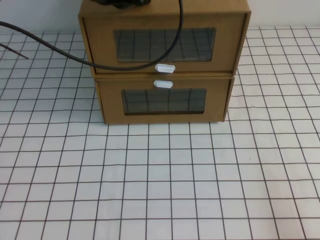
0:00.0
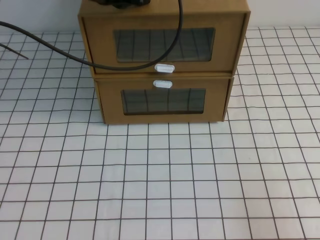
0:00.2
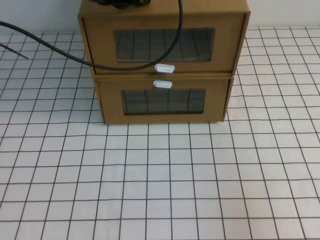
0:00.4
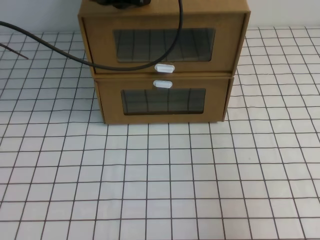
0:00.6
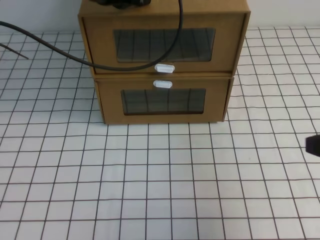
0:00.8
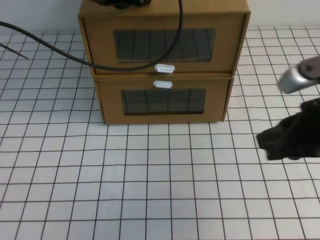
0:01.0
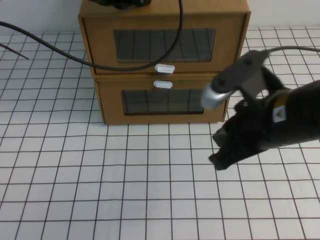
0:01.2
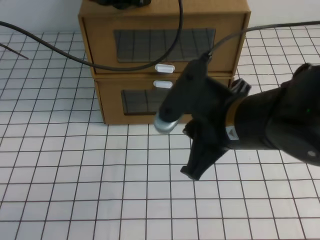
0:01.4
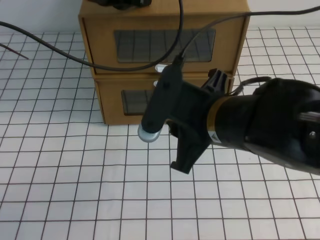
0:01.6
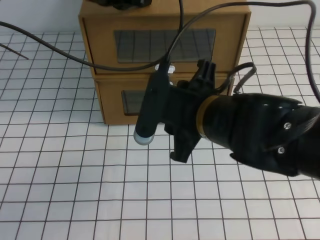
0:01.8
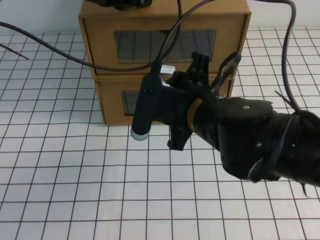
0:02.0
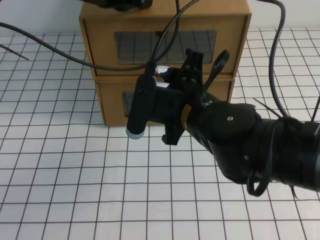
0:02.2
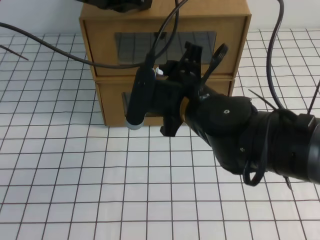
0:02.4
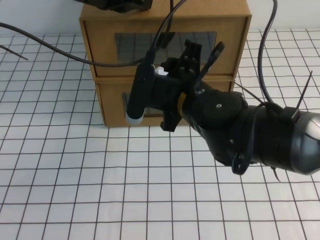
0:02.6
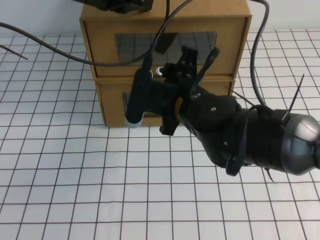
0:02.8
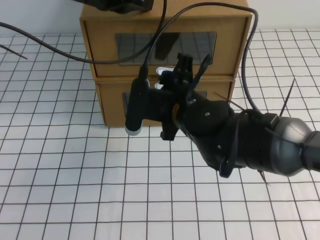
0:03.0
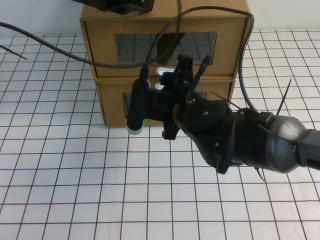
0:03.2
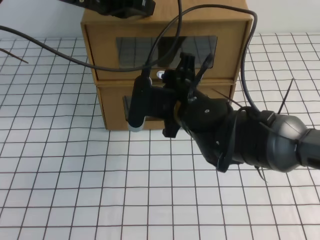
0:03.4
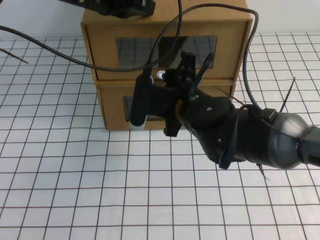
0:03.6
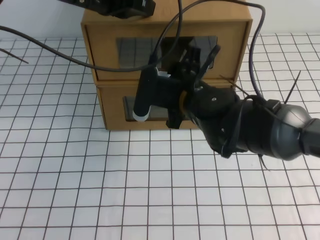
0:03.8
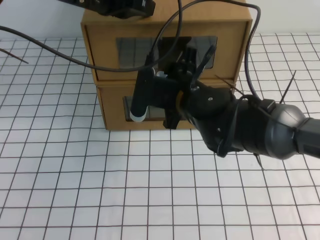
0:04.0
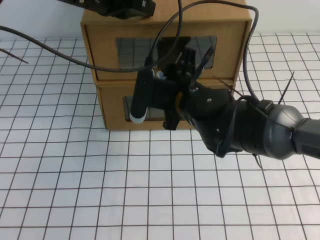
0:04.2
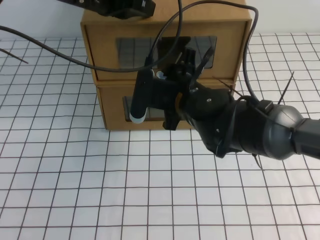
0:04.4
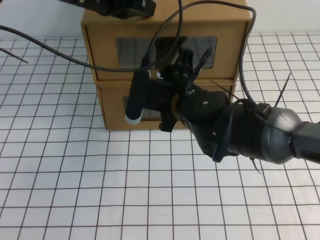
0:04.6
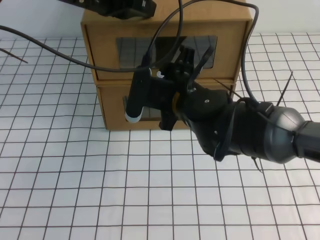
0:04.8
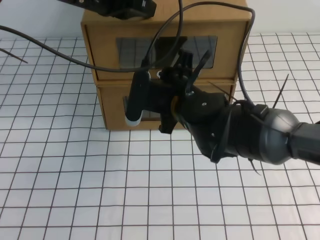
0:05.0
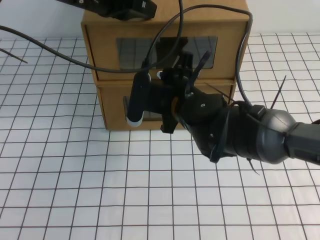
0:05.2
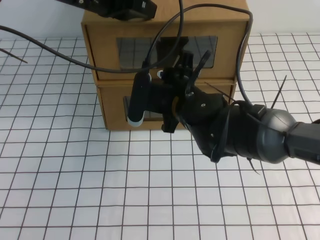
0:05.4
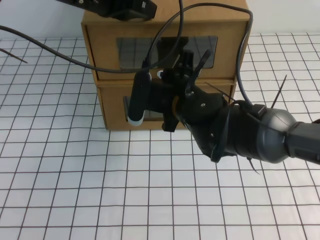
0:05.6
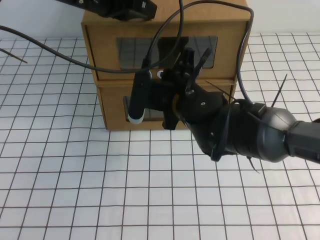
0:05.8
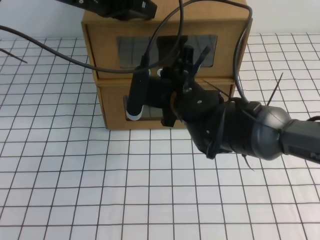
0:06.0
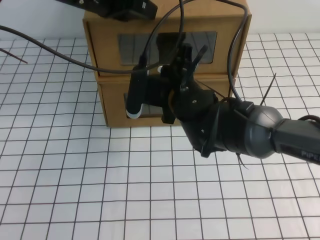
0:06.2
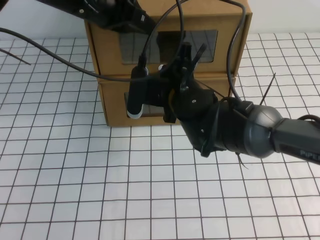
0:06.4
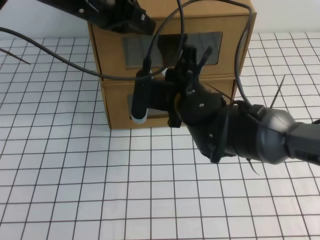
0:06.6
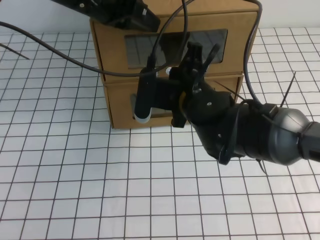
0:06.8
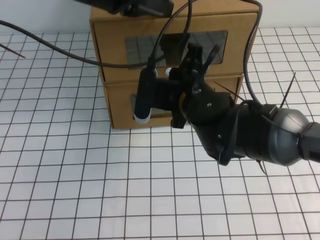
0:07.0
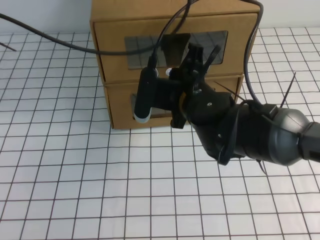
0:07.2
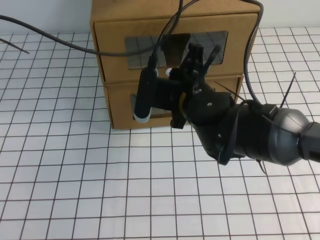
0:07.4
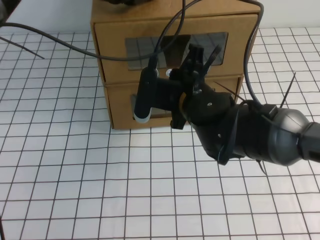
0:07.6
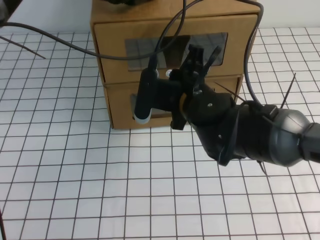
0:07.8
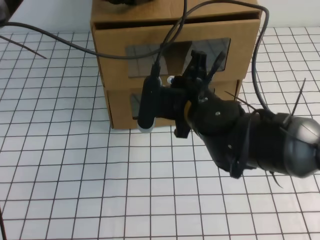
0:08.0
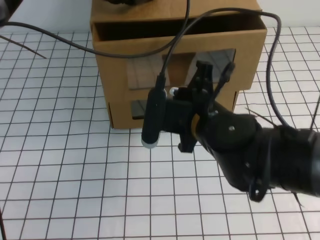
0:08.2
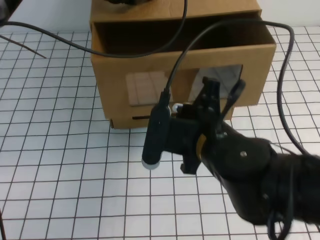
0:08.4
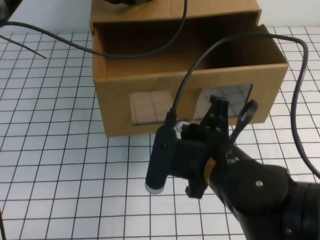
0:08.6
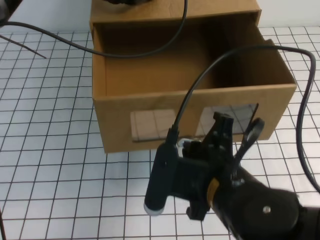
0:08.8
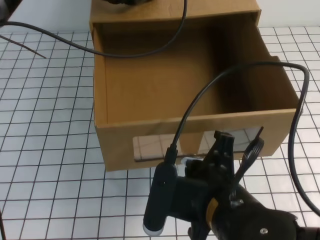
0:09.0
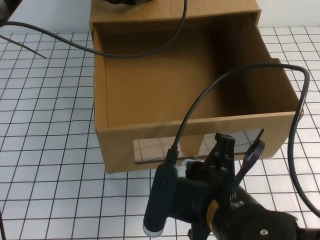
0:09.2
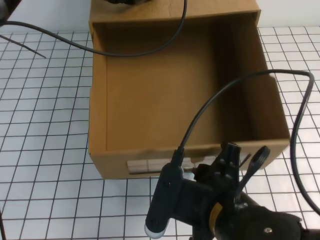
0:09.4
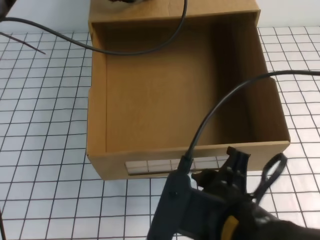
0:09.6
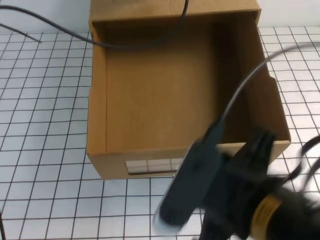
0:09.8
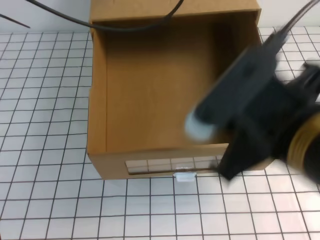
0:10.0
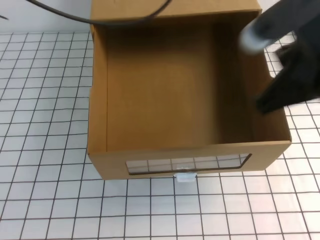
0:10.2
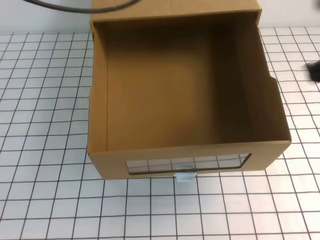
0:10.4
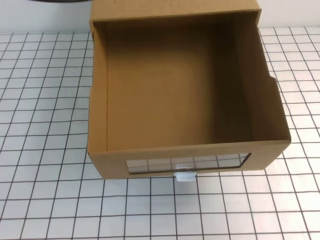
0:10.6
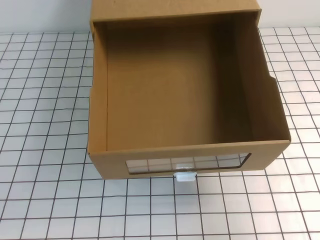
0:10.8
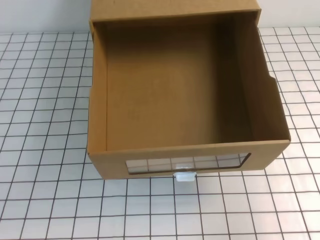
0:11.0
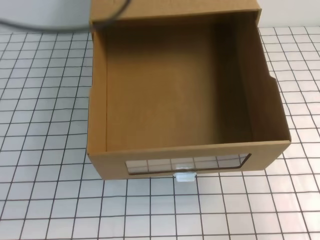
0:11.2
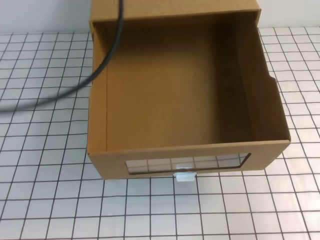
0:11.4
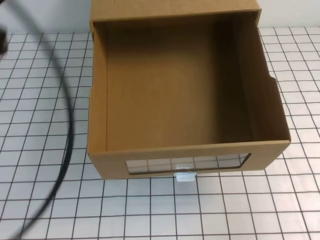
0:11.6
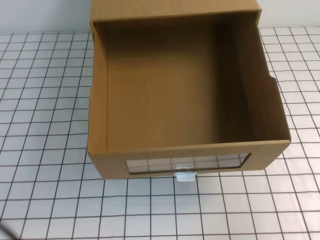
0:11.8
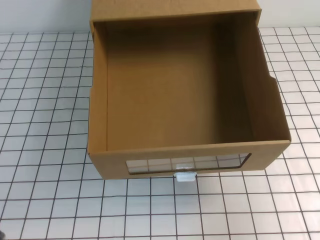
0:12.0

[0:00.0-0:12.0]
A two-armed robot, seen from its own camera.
Task of the whole recording: open the shoebox on the white tablecloth.
0:00.0 to 0:01.6: The right gripper is displaced to the left, forward and upward by some 30 cm.
0:01.6 to 0:03.0: The right gripper is displaced forward and downward by approximately 10 cm, and opens up.
0:04.4 to 0:06.0: The right gripper closes up.
0:07.6 to 0:09.0: The right gripper goes roughly 15 cm backward.
0:09.0 to 0:10.4: The right gripper shifts approximately 20 cm to the right and upward, and opens, then closes again. The left gripper shifts roughly 15 cm upward and backward.
0:10.4 to 0:12.0: The right gripper shifts some 15 cm backward, downward and to the right. Meanwhile the left gripper is displaced backward, downward and to the left by some 35 cm.

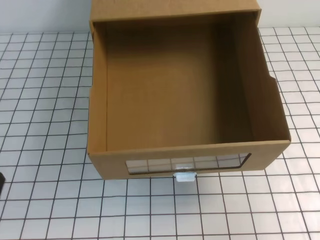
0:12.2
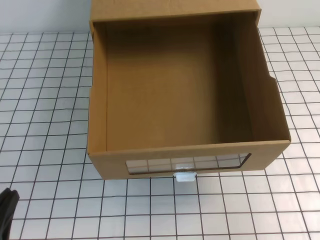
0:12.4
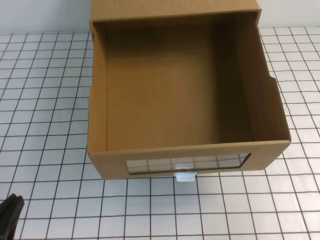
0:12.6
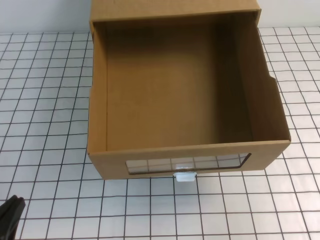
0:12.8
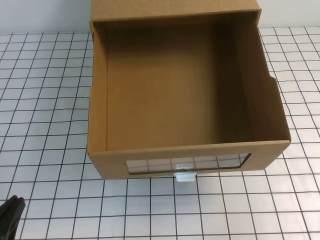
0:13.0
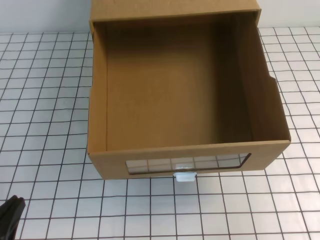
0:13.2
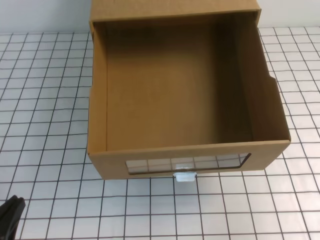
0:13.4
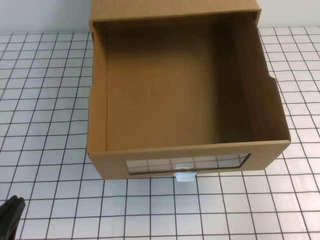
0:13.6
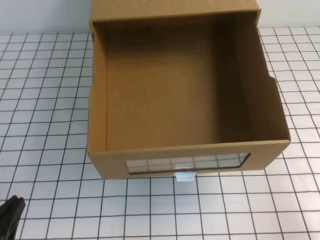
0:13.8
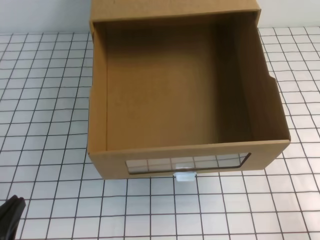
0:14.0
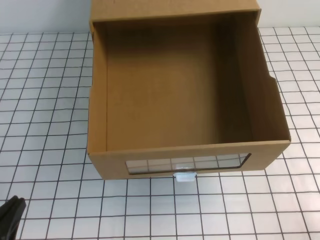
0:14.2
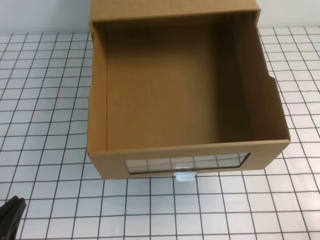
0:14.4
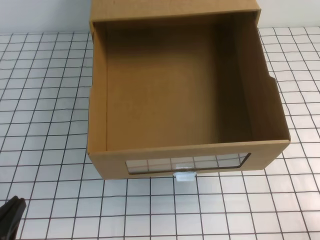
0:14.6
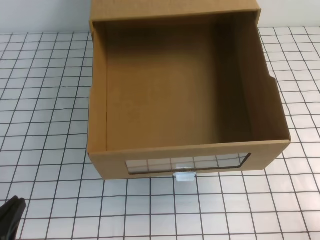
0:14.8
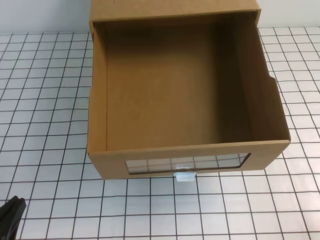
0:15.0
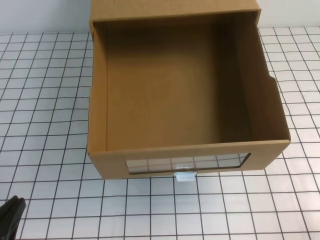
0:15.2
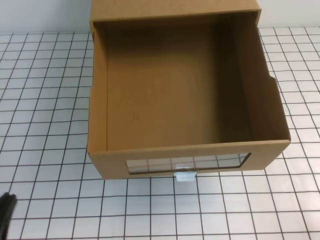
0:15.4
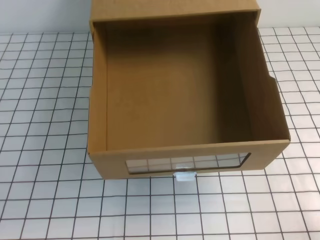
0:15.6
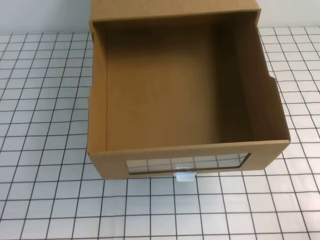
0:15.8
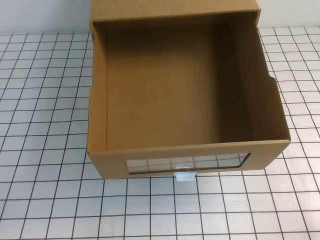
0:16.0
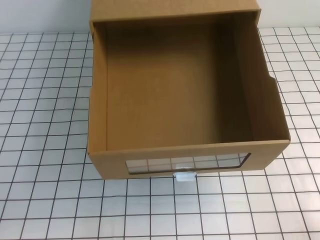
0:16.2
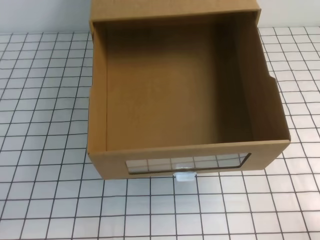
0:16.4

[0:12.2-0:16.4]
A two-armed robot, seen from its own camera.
Task of the whole recording: open the shoebox on the white tablecloth.
Step, 0:12.2 to 0:16.4: Open the shoe box.
0:12.2 to 0:13.6: The left gripper moves downward, roughly 5 cm.
0:13.6 to 0:15.0: The right gripper shifts some 10 cm downward.
0:15.0 to 0:16.4: The grippers stay close to where they were, moving slightly.

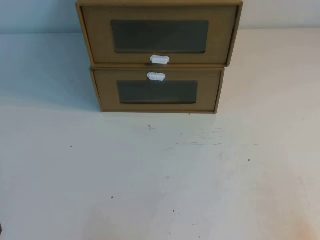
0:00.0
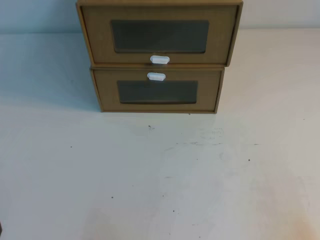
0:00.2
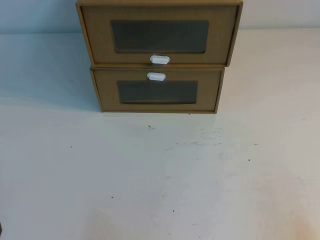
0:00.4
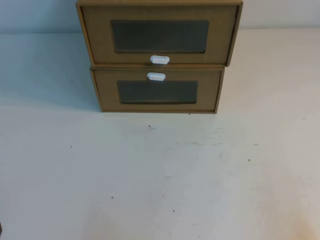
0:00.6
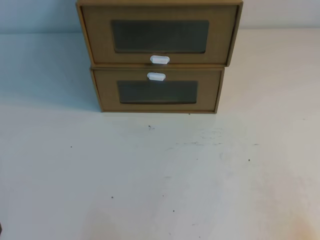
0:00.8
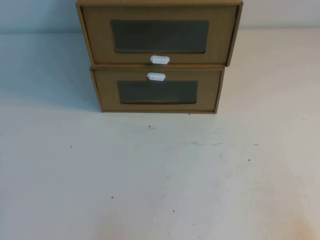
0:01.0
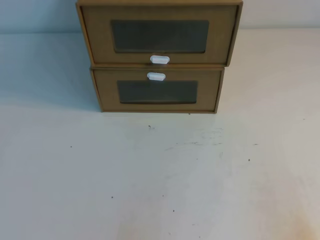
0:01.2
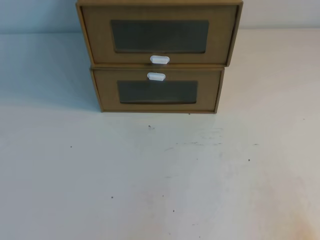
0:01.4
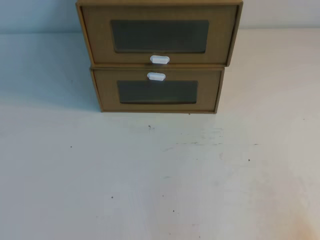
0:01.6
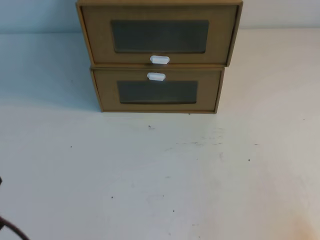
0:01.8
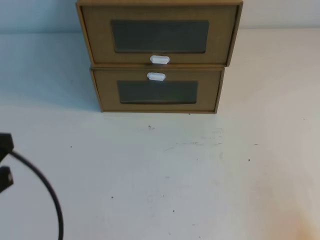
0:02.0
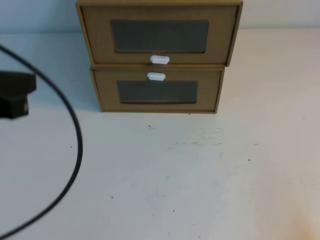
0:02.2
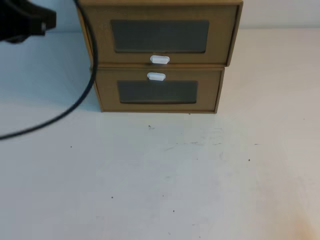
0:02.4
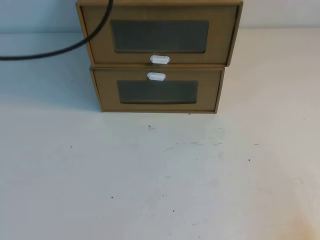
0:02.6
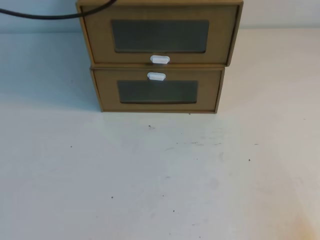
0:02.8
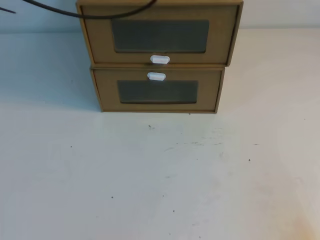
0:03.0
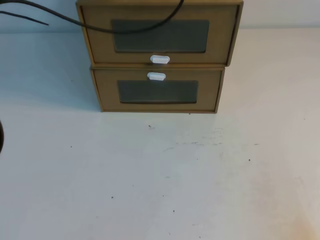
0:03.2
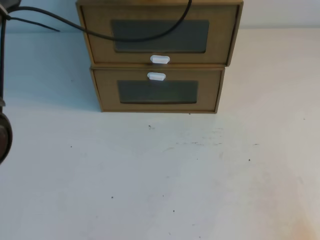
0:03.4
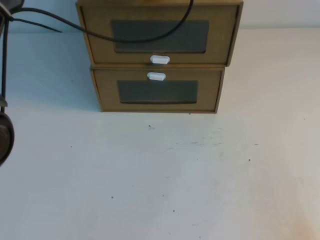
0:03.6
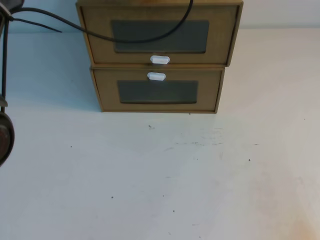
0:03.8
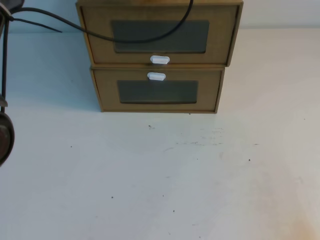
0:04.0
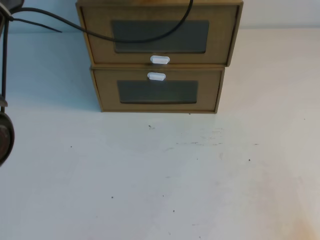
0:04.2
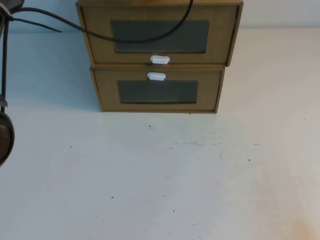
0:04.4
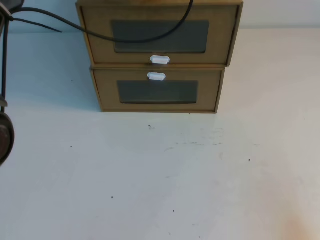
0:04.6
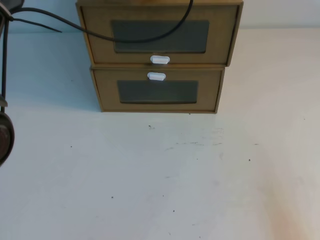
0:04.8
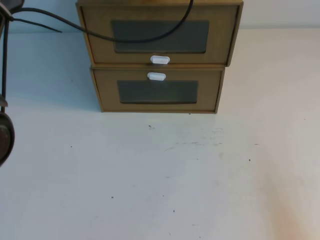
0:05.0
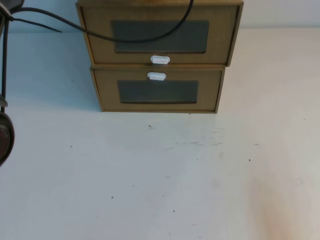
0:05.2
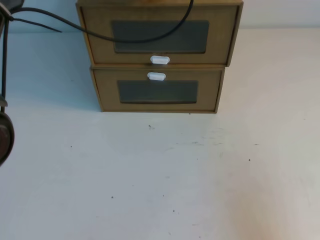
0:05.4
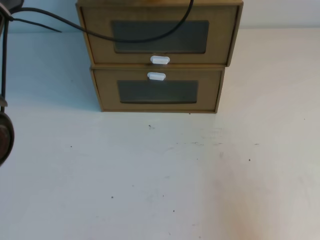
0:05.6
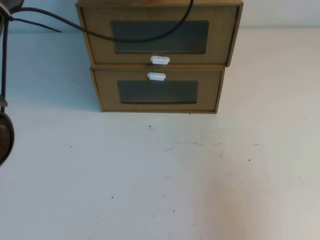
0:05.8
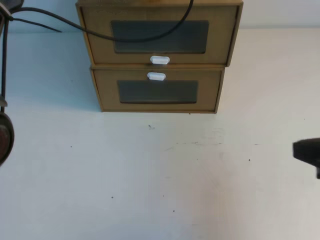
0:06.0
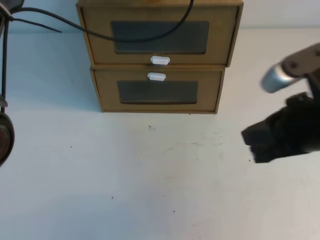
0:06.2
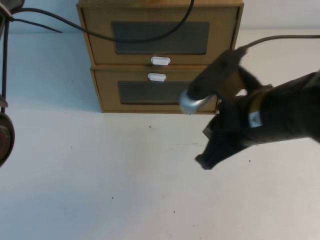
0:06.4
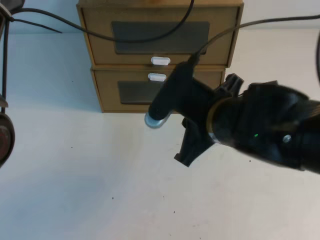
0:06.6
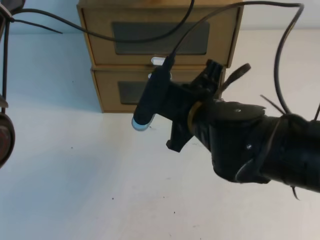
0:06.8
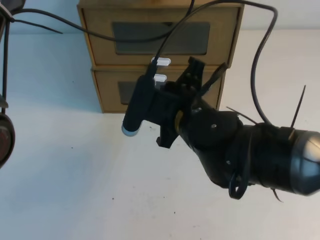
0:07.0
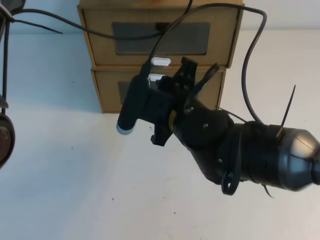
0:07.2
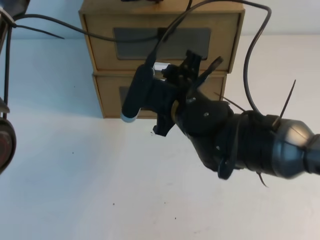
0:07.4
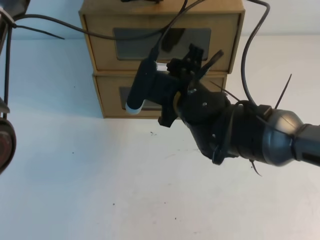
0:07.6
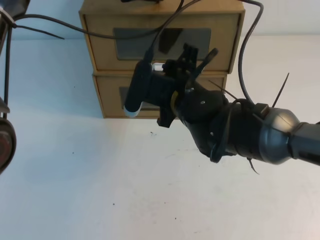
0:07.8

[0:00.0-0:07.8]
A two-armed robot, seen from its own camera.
Task of the whole recording: open the shoebox on the table.
0:01.6 to 0:03.2: The left gripper goes approximately 50 cm forward, upward and to the right.
0:03.2 to 0:04.6: The left gripper shifts by about 5 cm.
0:04.6 to 0:06.2: The right gripper is displaced upward, forward and to the left by some 20 cm.
0:06.2 to 0:07.8: The right gripper heads to the left and forward, covering about 25 cm, and opens up.
